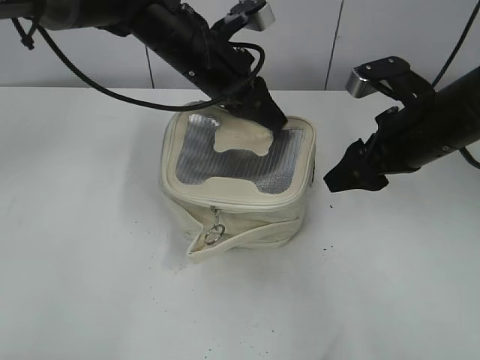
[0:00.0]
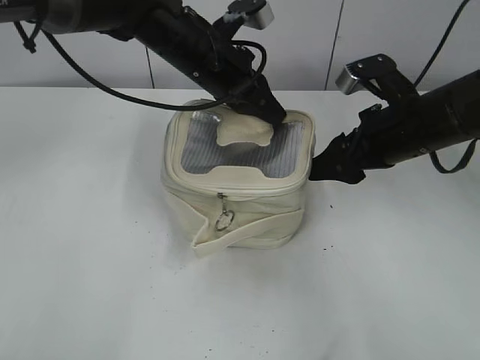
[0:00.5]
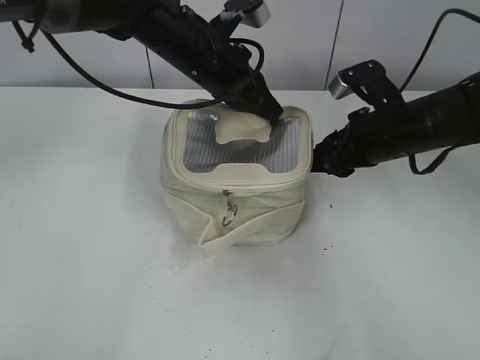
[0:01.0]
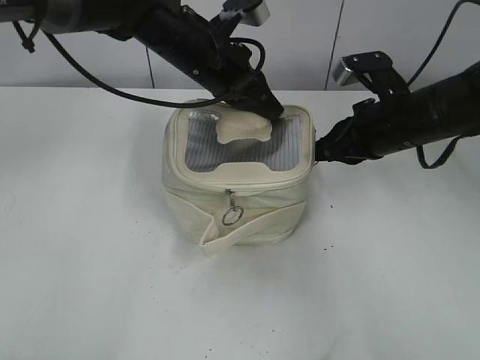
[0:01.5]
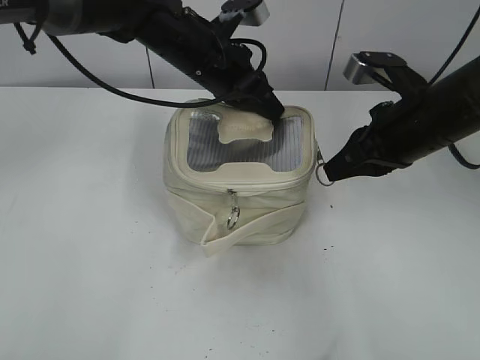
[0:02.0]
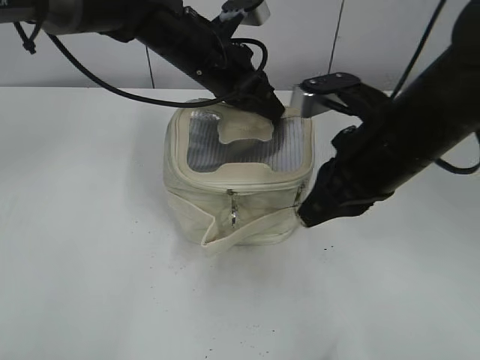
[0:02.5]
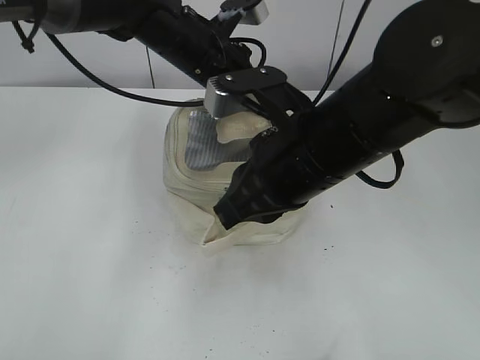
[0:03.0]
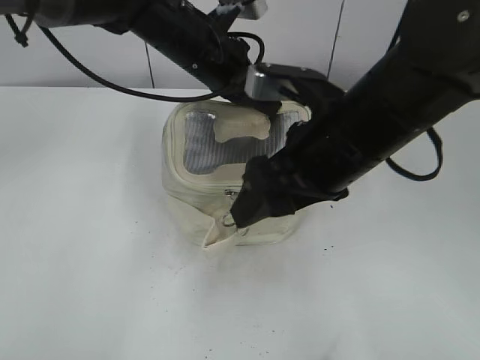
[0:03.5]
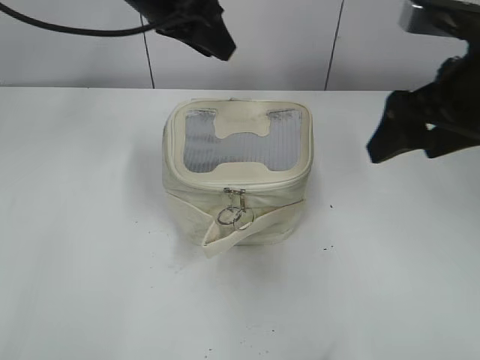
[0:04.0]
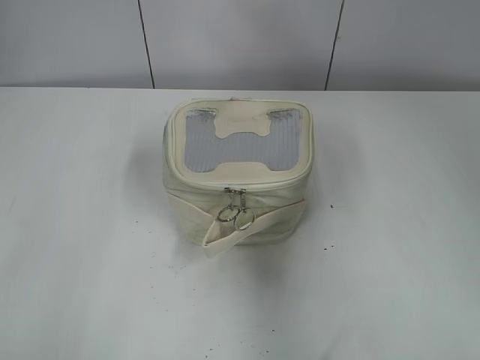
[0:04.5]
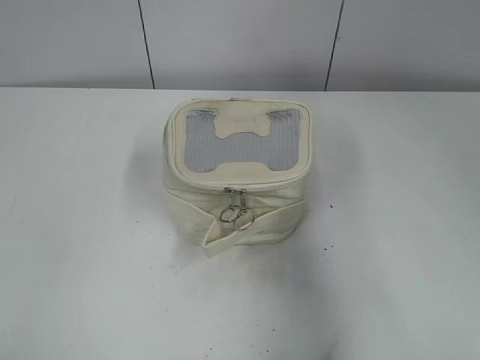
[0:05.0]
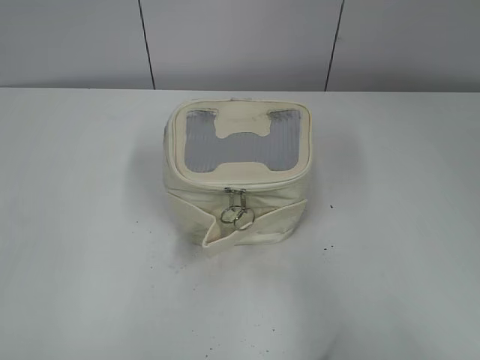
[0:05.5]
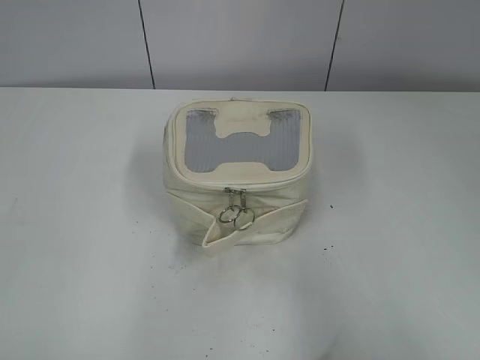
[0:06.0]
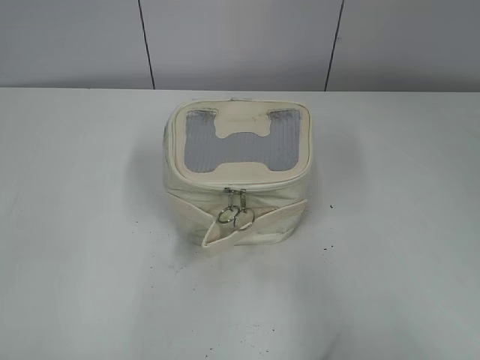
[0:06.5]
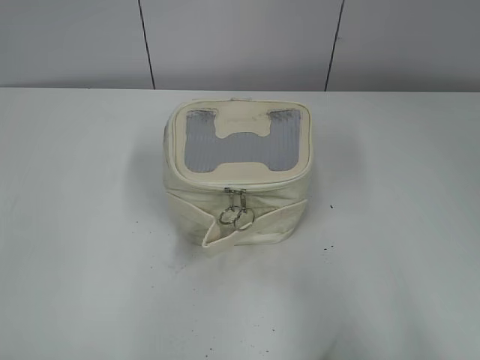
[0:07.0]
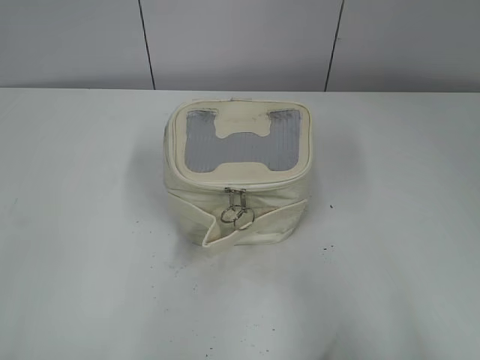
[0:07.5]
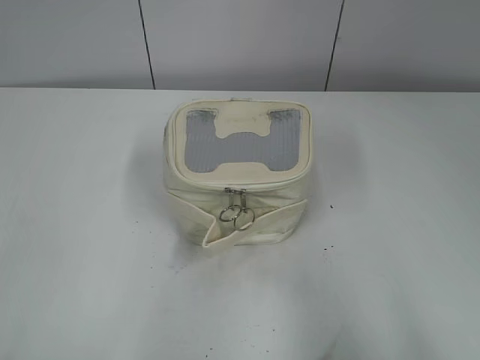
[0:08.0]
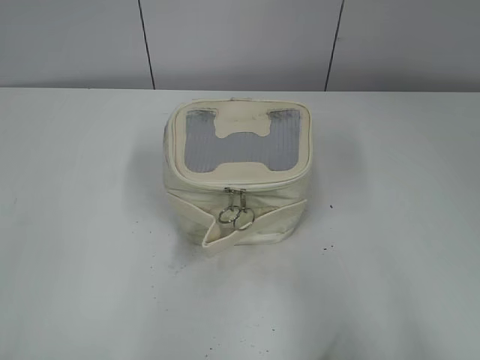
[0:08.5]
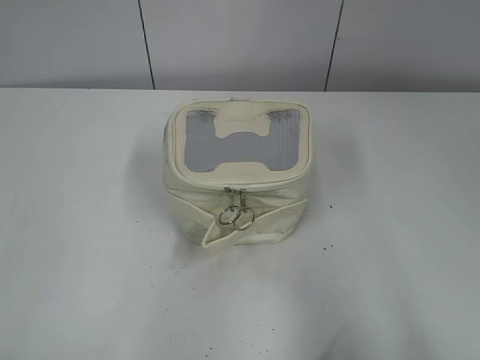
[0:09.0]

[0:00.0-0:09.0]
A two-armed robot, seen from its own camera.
Step, 0:00.0 to 0:03.0: Zip up the bag with your right hand.
0:00.0 to 0:02.0: The right gripper closes its fingers.
0:02.0 to 0:04.5: The right gripper heads upward and backward, covering roughly 15 cm, moves roughly 15 cm to the left and comes back, and opens up, while the left gripper travels upward and to the left by roughly 30 cm, and opens up.
0:04.5 to 0:07.0: The right gripper is displaced backward by some 20 cm. The left gripper moves backward, about 35 cm.

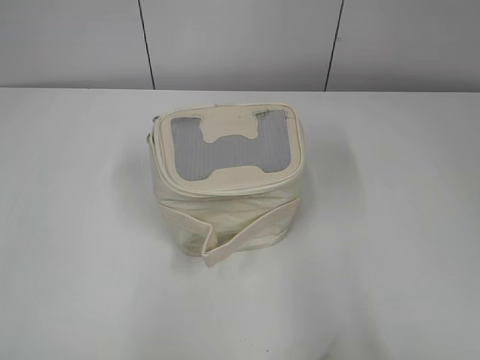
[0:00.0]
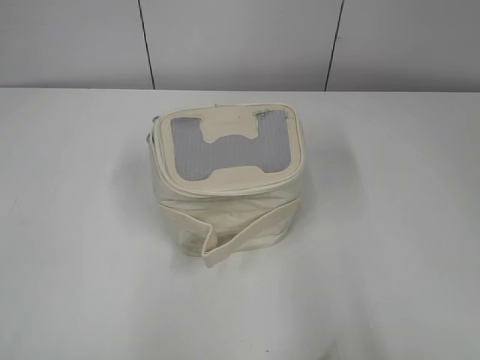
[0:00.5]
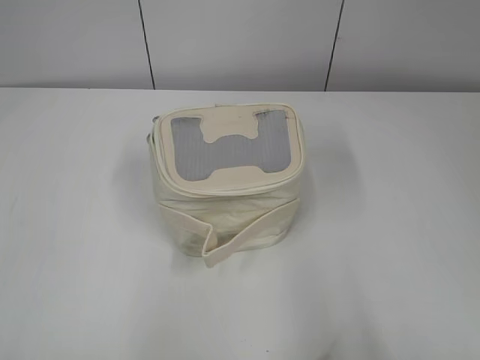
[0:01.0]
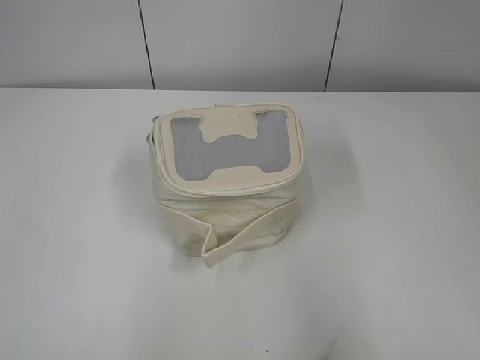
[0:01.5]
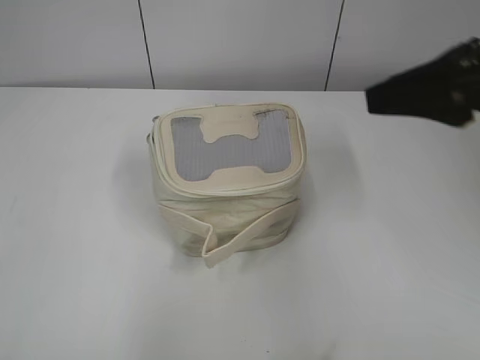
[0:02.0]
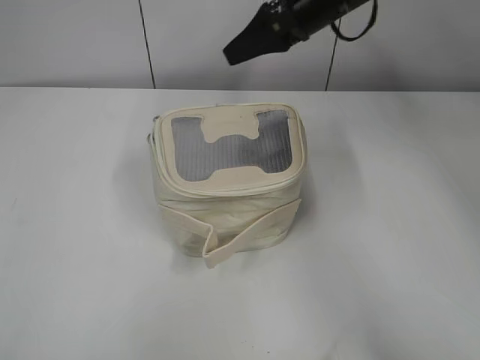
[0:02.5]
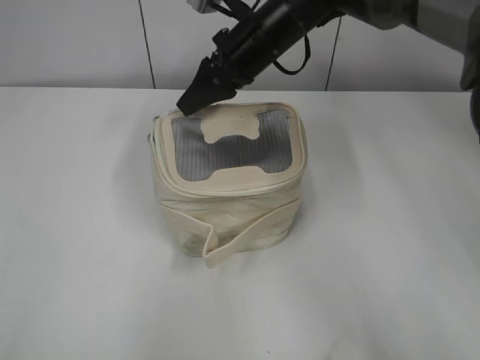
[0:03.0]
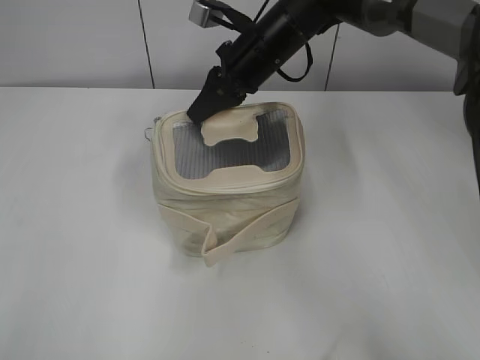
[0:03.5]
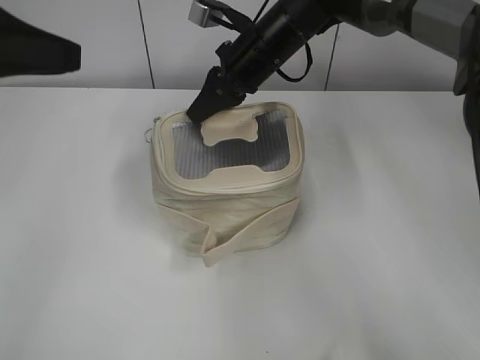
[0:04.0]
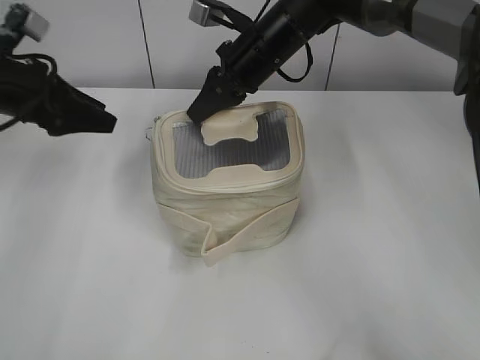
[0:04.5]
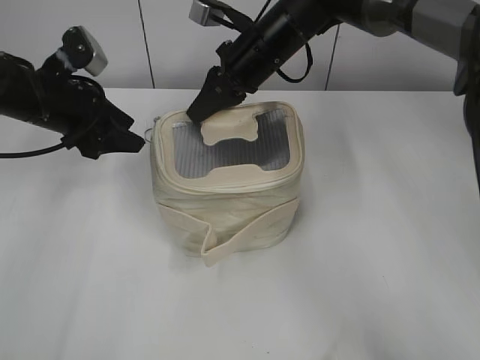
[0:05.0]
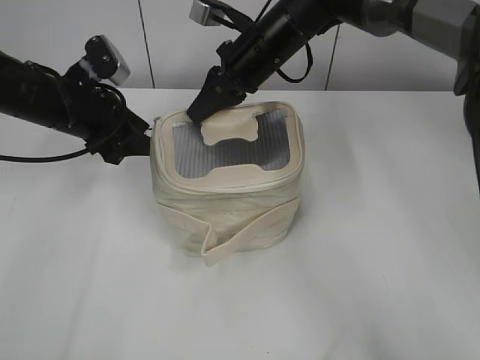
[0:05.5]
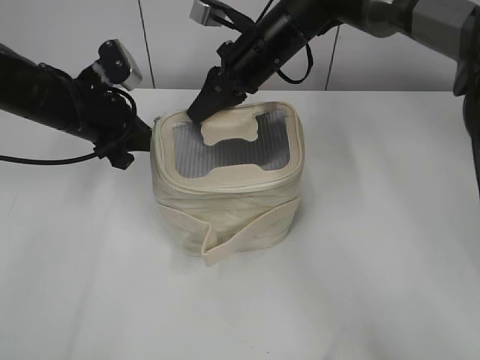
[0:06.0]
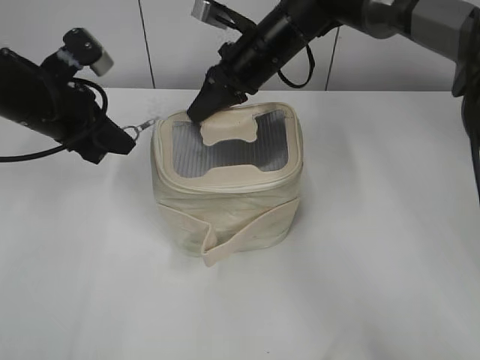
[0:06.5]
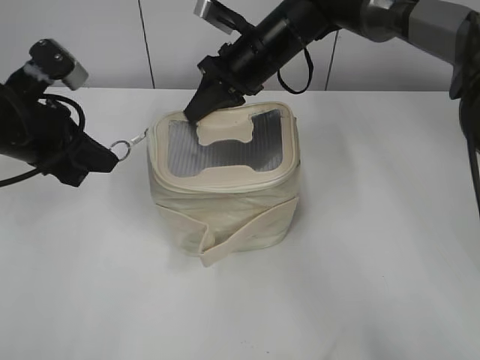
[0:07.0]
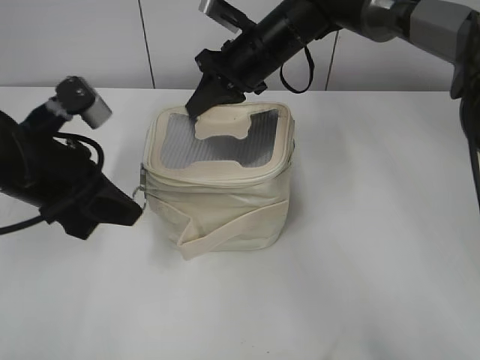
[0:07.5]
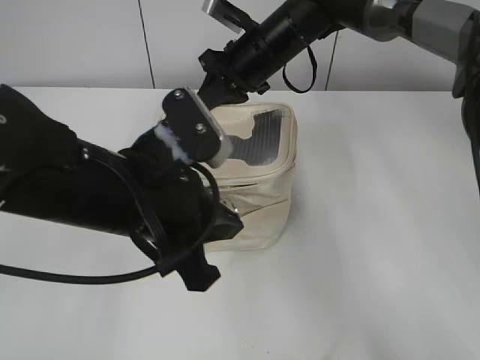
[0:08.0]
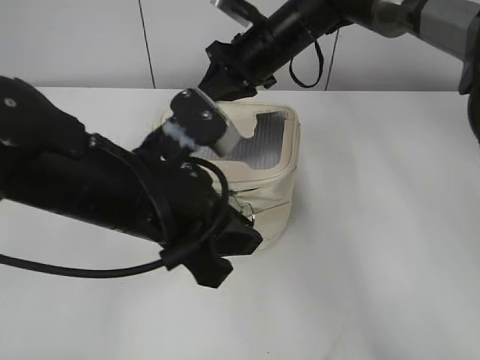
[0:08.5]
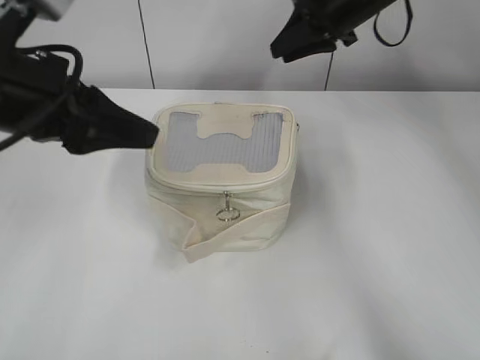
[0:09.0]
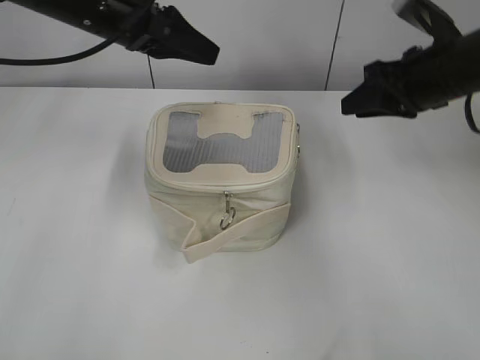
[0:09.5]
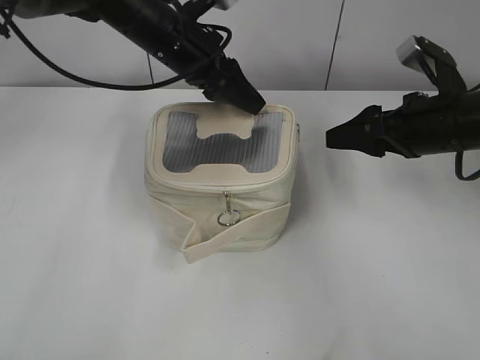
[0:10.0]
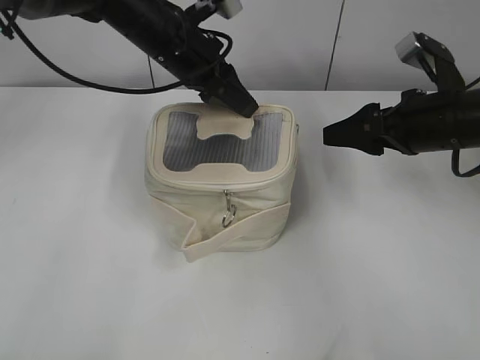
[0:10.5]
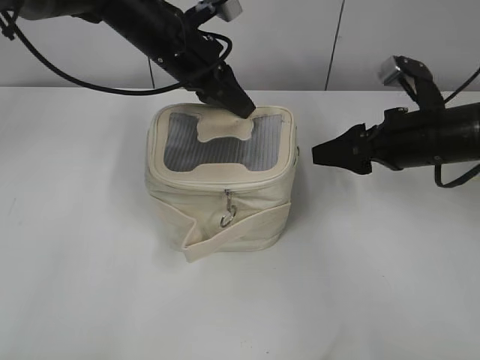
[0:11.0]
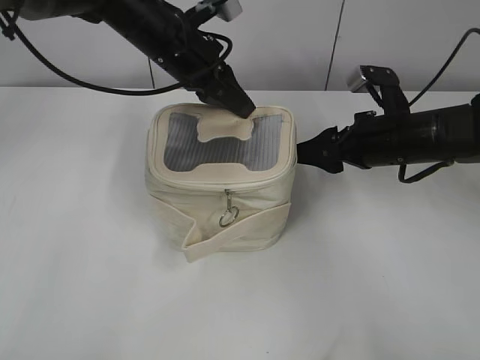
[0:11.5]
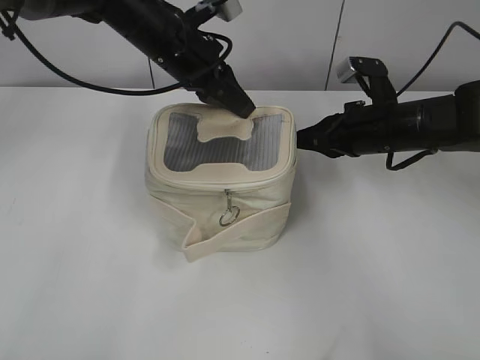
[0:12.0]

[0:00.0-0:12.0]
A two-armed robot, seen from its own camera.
Step, 0:00.0 to 0:08.5: Zip up the bag with your left hand.
0:02.0 to 0:04.0: The right gripper travels forward, to the left and downward by approximately 35 cm, and closes. Meanwhile the left gripper shifts approximately 20 cm forward.
0:04.0 to 0:06.0: The left gripper shifts approximately 20 cm forward and downward, and closes.
0:06.0 to 0:08.0: The left gripper is displaced backward and to the right by approximately 20 cm.
0:08.0 to 0:10.0: The right gripper shifts some 25 cm to the right and backward, and opens. The left gripper heads forward, covering about 20 cm, and opens up.
0:10.0 to 0:12.0: The left gripper closes. Meanwhile the right gripper goes roughly 5 cm downward, and closes.

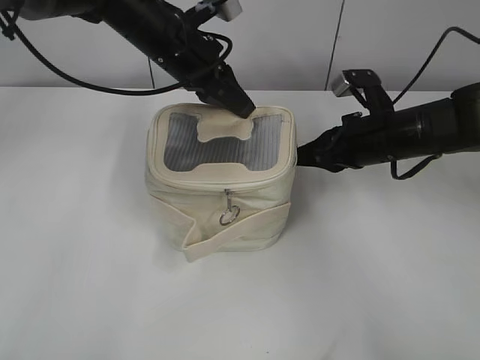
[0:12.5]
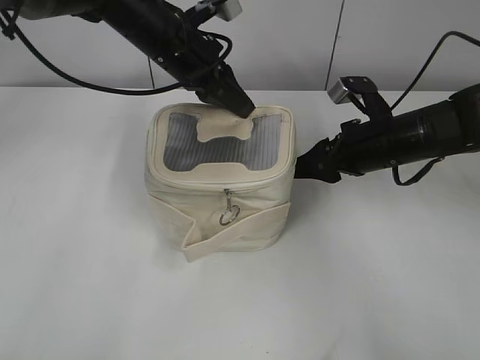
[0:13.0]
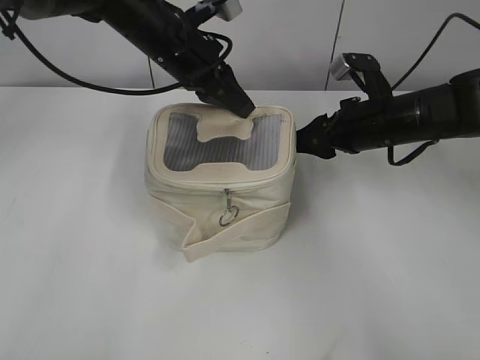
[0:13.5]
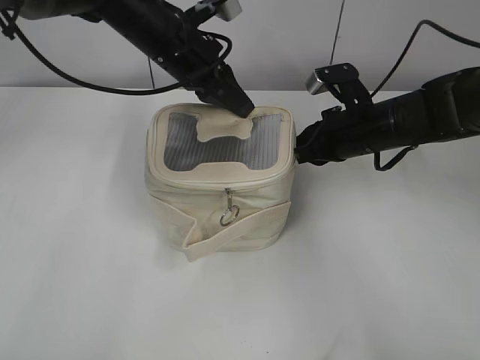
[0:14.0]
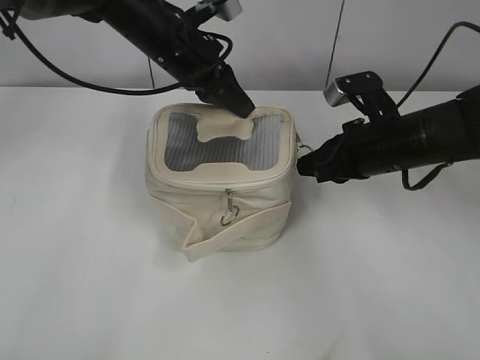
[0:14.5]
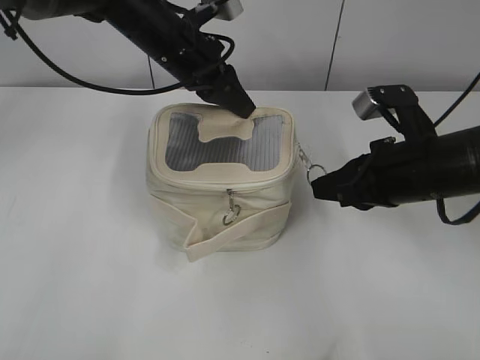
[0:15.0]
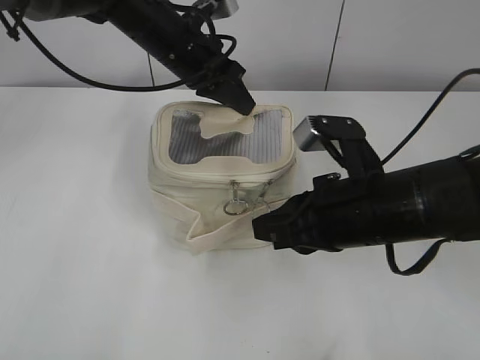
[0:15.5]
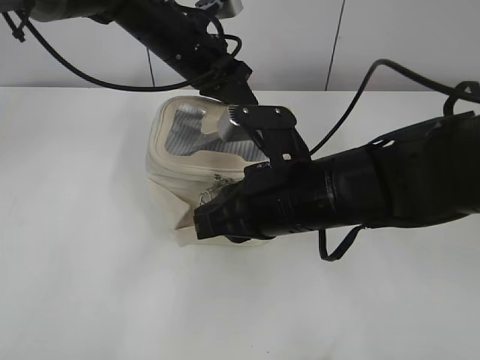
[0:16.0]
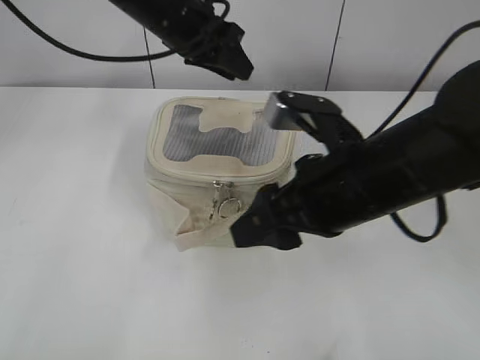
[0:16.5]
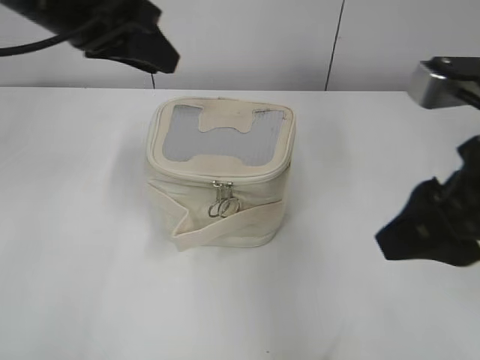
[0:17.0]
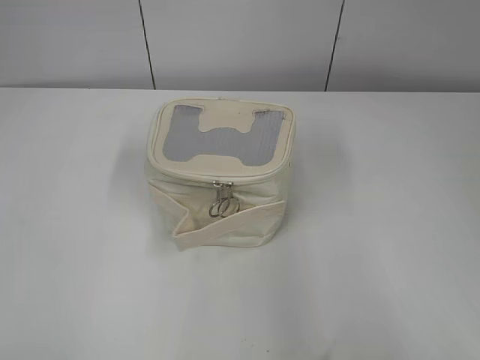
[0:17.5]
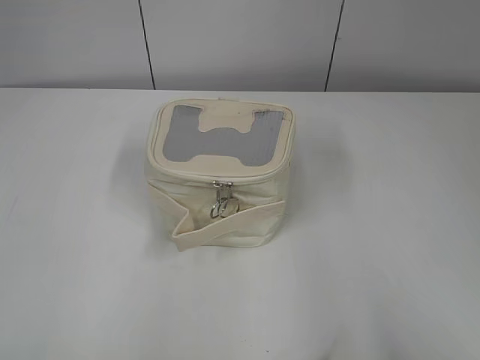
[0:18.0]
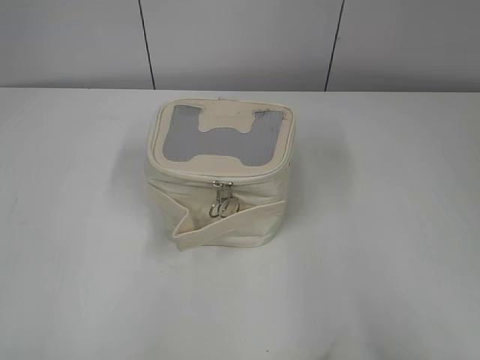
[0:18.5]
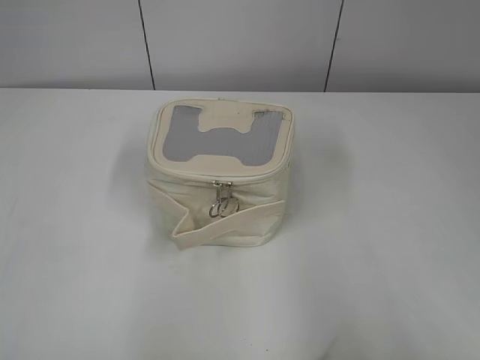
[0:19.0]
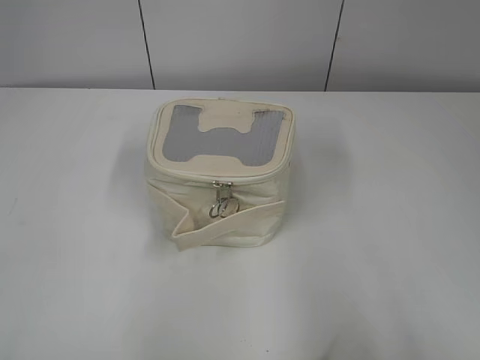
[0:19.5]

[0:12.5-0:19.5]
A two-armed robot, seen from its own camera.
Step, 0:12.5 to 0:16.0: Zip up the bag with your right hand.
0:12.5 to 0:14.5: The right gripper opens, then closes again.
0:14.5 to 0:16.0: The right gripper is displaced to the left and backward by some 15 cm.
0:16.0 to 0:17.5: The left gripper shifts approximately 40 cm backward and to the left, and opens up, while the right gripper moves to the right, backward and upward, roughly 30 cm, and opens up.
